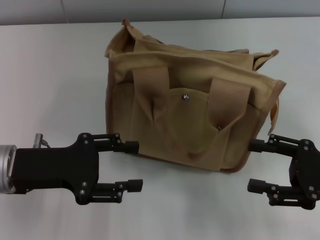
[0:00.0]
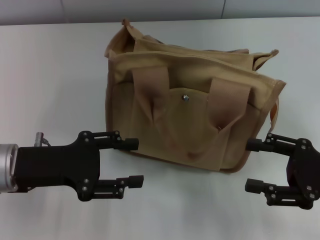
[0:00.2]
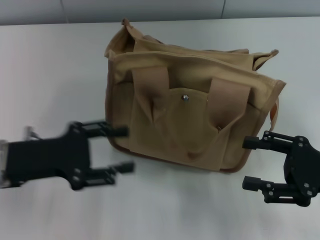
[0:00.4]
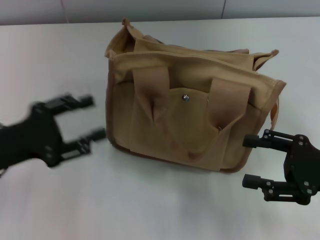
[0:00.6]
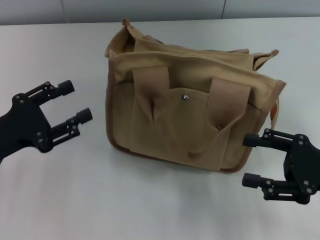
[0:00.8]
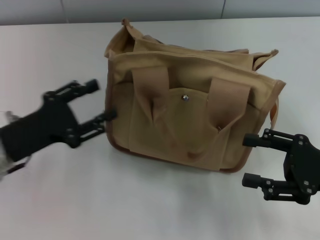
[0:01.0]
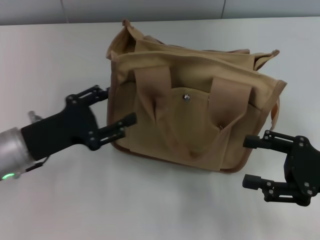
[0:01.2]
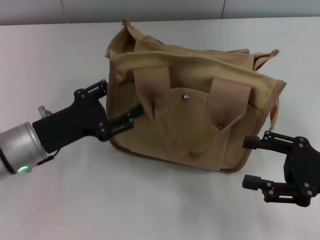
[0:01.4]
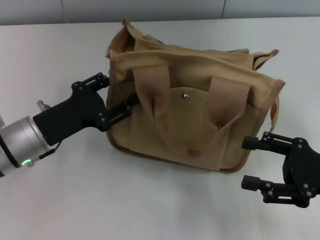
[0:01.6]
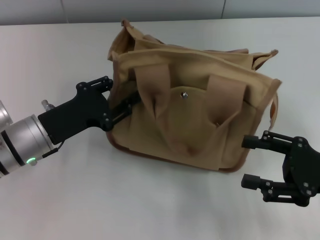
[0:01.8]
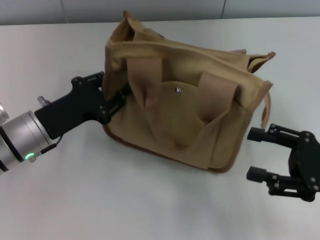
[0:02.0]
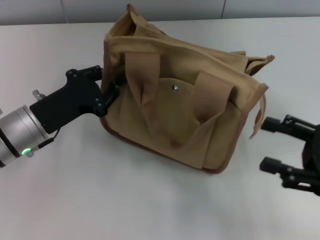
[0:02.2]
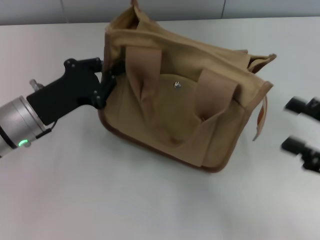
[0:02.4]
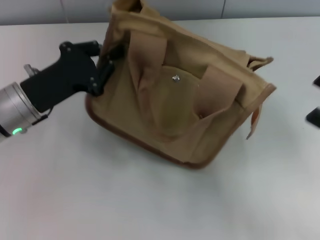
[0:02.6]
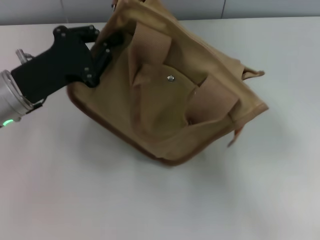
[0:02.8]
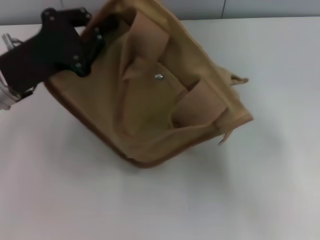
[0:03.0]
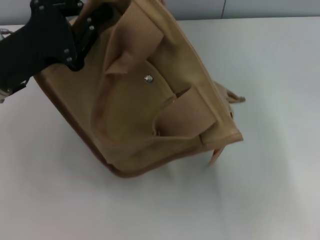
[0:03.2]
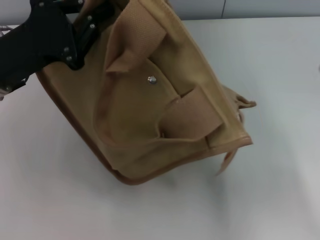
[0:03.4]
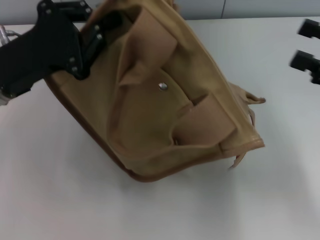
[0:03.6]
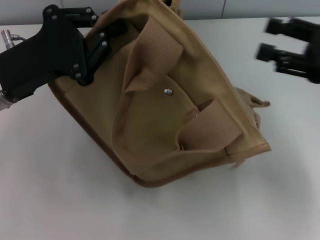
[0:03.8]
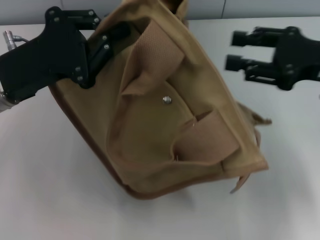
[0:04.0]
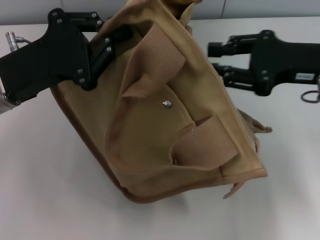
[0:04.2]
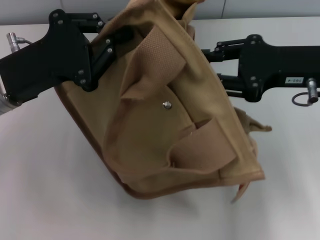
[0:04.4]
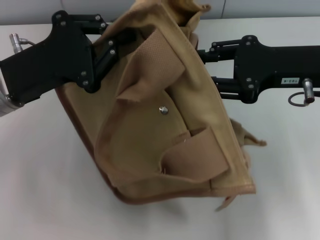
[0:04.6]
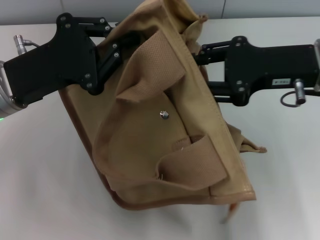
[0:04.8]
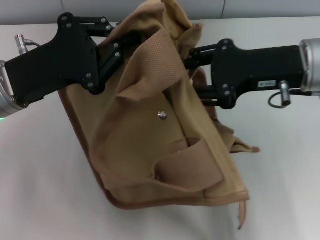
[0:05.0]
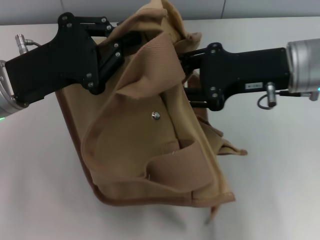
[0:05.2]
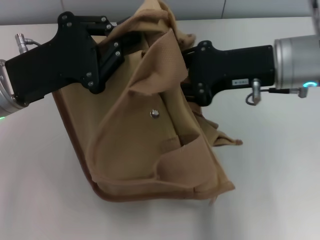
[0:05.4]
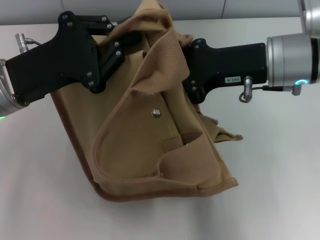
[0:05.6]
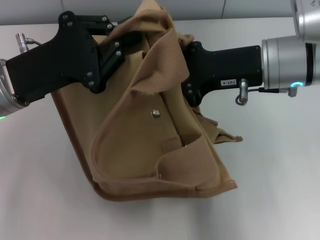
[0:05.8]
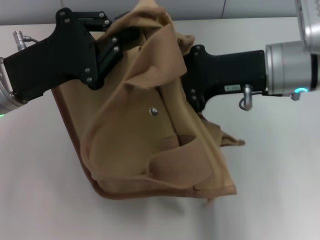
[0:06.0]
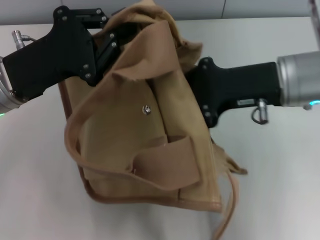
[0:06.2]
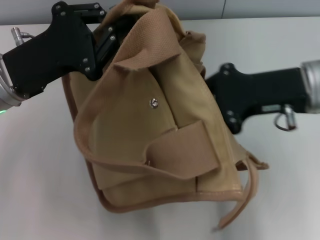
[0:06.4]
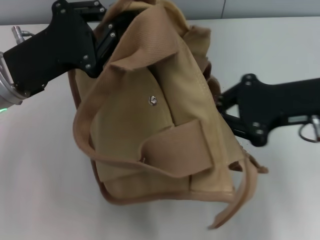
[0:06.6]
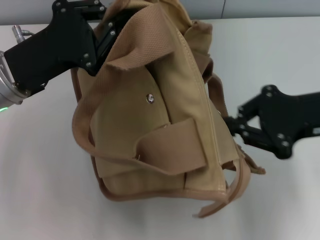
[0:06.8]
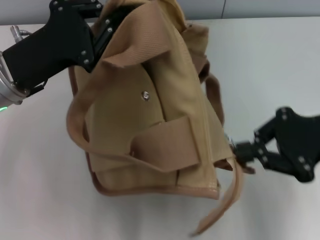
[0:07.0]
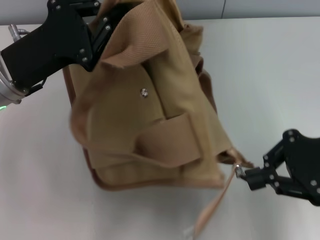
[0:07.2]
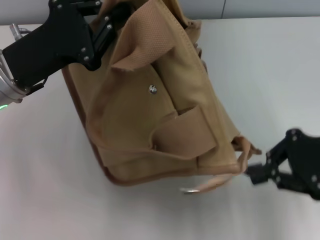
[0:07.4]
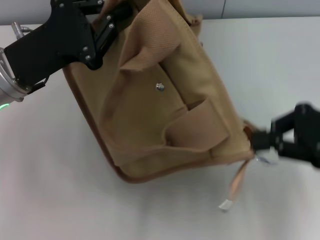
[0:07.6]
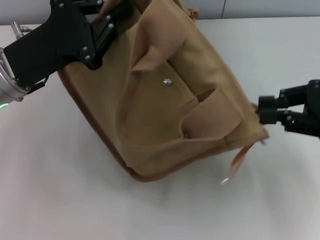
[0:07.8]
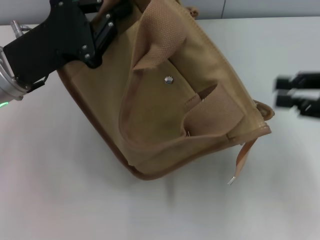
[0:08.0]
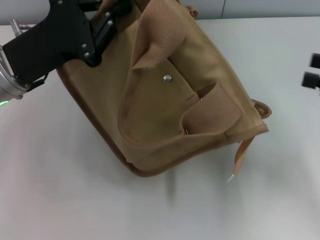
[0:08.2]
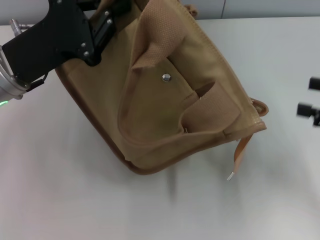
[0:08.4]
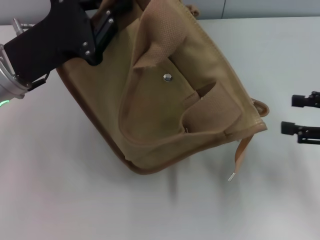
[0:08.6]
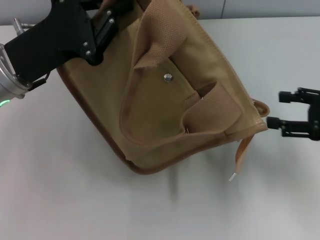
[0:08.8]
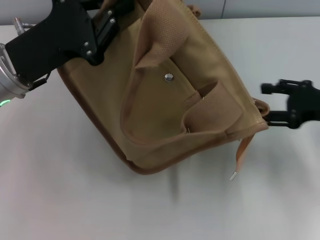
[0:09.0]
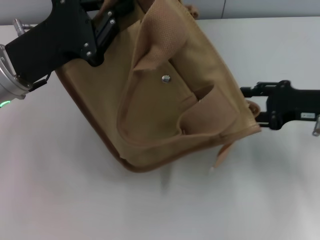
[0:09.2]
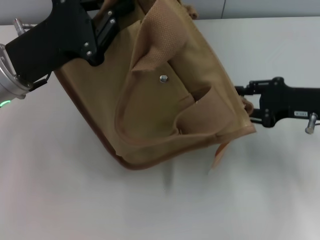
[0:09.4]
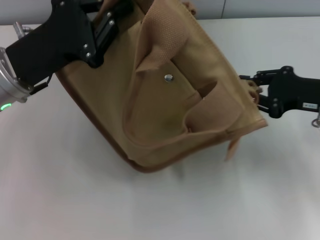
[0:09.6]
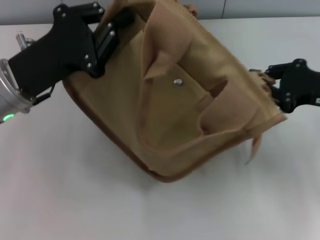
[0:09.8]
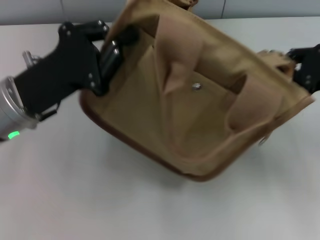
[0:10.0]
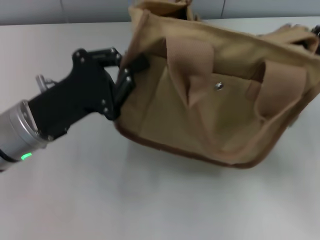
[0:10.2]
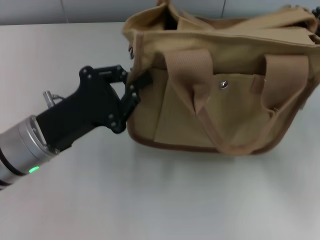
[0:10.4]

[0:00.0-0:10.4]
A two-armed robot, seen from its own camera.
Step, 0:00.0 to 0:07.8: Pull open the zipper with your right hand.
0:00.0 to 0:01.4: The left gripper changes place by about 5 cm.
0:01.4 to 0:03.0: The left gripper goes roughly 10 cm upward, and closes up. Meanwhile the right gripper goes some 10 cm to the right and upward.
0:03.0 to 0:04.4: The right gripper moves to the left and forward, some 15 cm, and closes its fingers.
0:04.4 to 0:06.0: The right gripper goes about 5 cm to the left, and closes up.
0:06.0 to 0:07.4: The right gripper moves to the right and backward, approximately 15 cm.
0:07.4 to 0:09.0: The right gripper moves downward, about 5 cm, and opens up.
0:09.0 to 0:10.4: The left gripper heads downward and backward, covering about 10 cm; the right gripper shifts approximately 5 cm upward, and closes up.

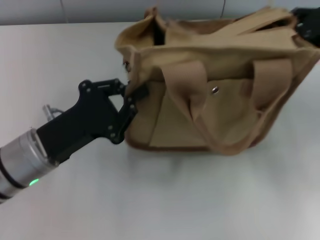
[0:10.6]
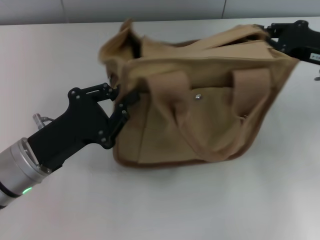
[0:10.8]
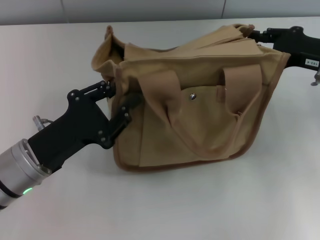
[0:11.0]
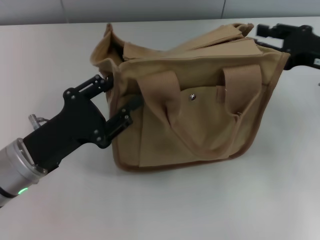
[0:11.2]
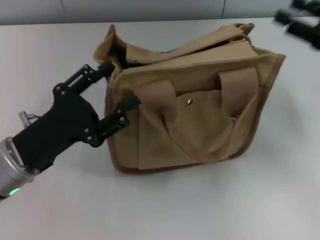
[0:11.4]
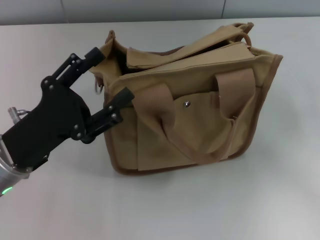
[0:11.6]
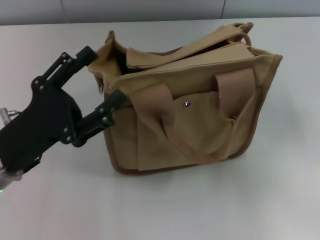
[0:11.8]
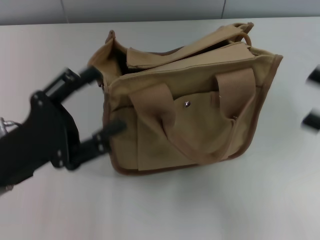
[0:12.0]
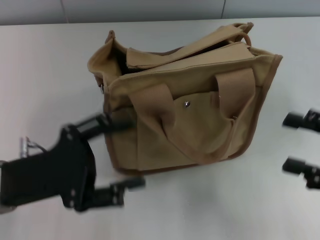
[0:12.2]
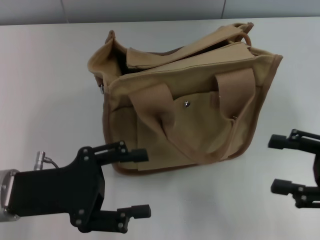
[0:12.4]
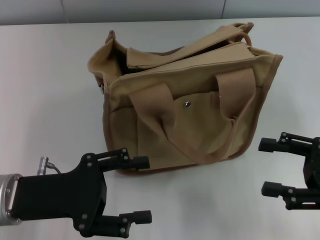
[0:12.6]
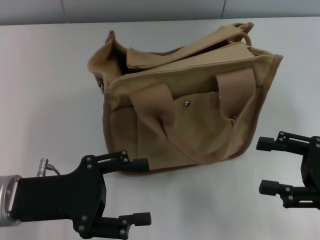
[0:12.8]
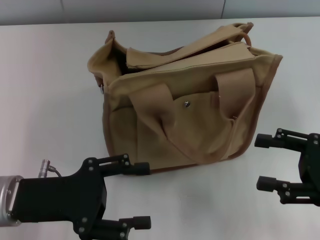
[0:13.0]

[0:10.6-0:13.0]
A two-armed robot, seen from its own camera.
0:10.6 to 0:11.8: The right gripper shifts some 10 cm backward, and opens up. The left gripper opens.
0:11.8 to 0:13.0: The right gripper shifts by about 5 cm.

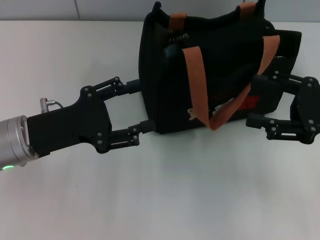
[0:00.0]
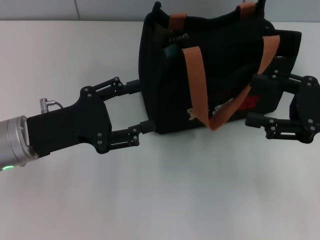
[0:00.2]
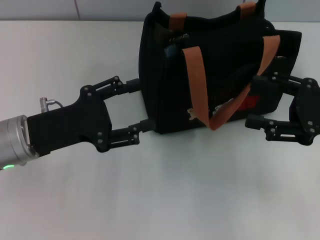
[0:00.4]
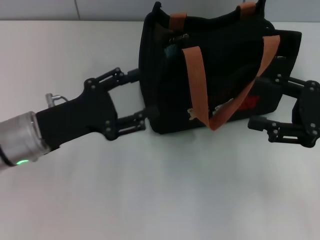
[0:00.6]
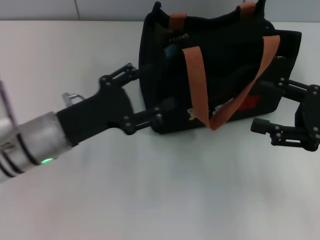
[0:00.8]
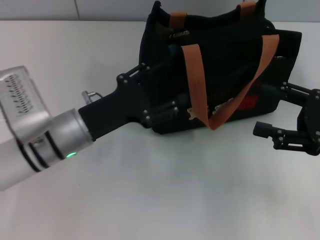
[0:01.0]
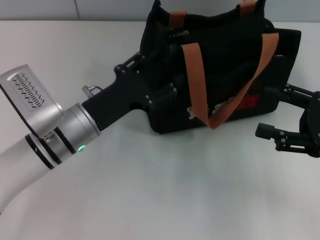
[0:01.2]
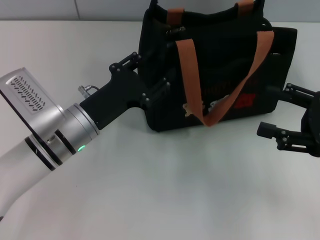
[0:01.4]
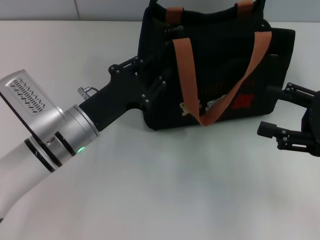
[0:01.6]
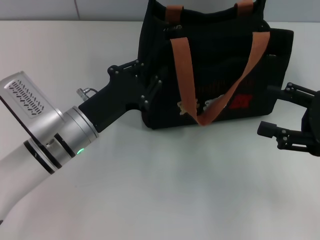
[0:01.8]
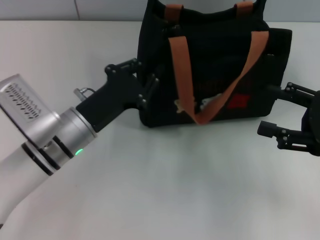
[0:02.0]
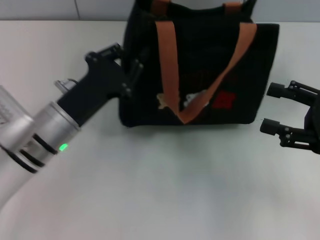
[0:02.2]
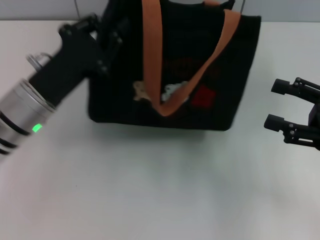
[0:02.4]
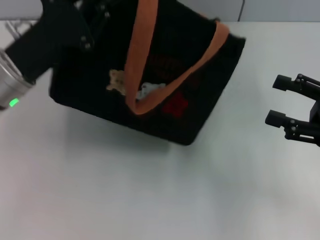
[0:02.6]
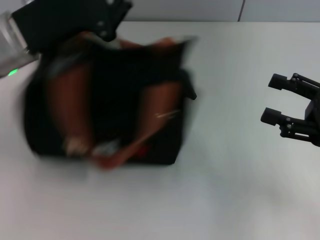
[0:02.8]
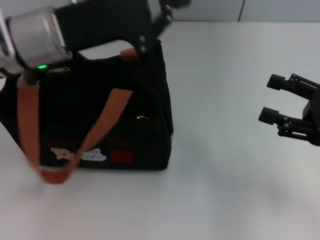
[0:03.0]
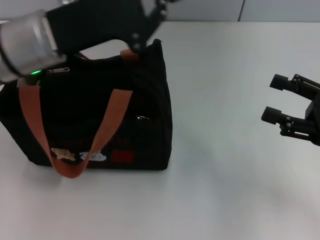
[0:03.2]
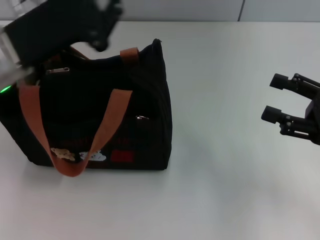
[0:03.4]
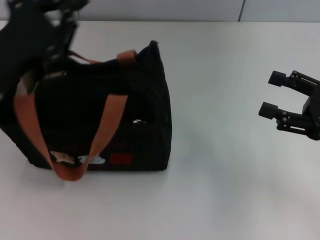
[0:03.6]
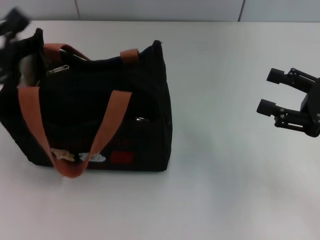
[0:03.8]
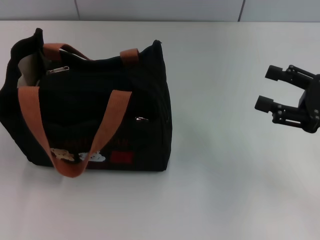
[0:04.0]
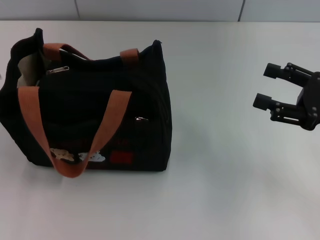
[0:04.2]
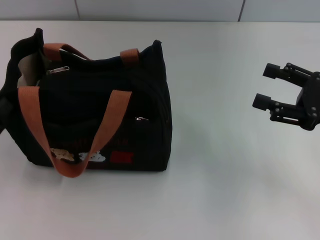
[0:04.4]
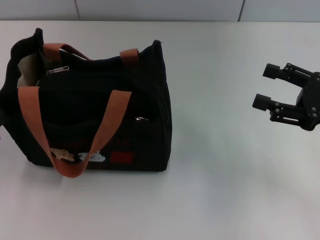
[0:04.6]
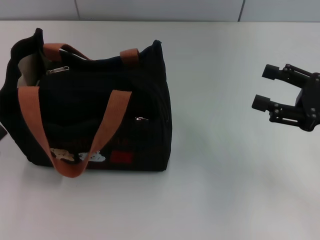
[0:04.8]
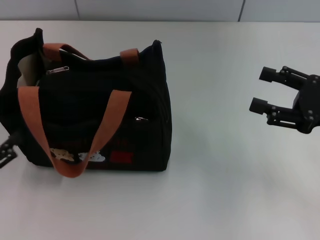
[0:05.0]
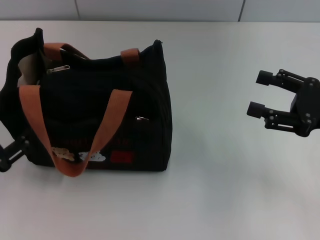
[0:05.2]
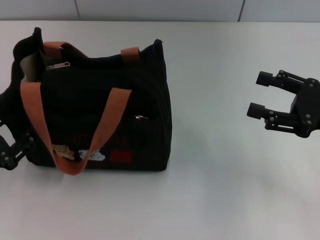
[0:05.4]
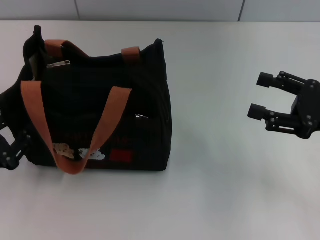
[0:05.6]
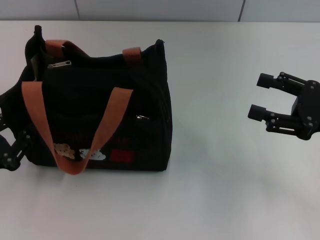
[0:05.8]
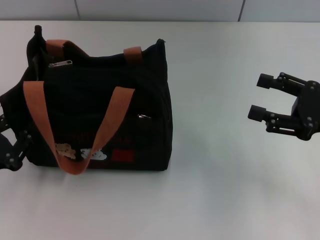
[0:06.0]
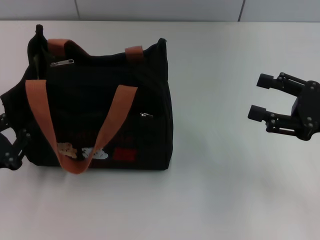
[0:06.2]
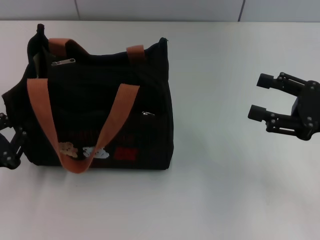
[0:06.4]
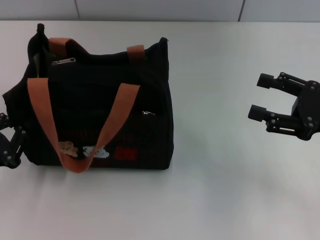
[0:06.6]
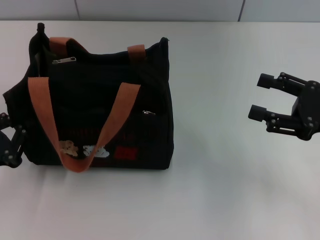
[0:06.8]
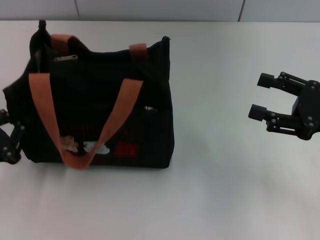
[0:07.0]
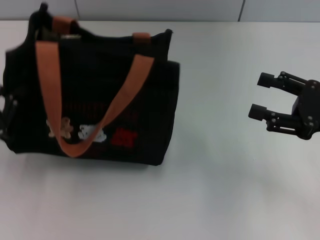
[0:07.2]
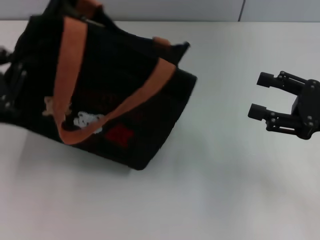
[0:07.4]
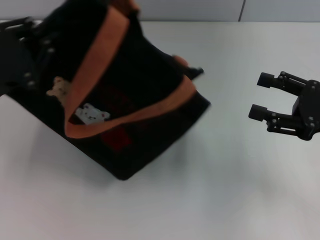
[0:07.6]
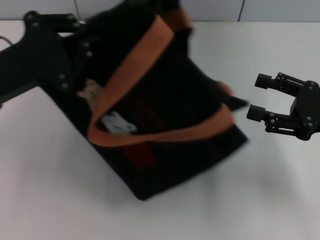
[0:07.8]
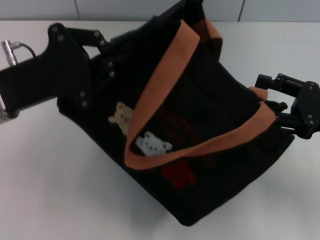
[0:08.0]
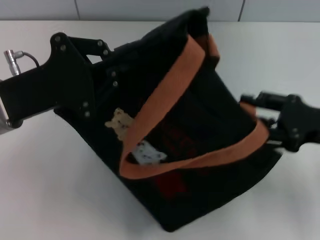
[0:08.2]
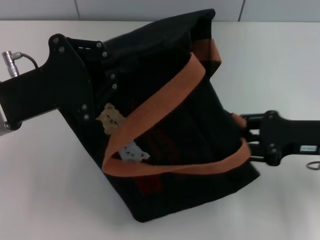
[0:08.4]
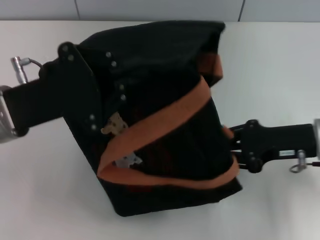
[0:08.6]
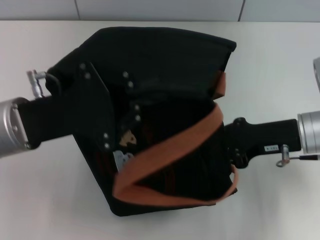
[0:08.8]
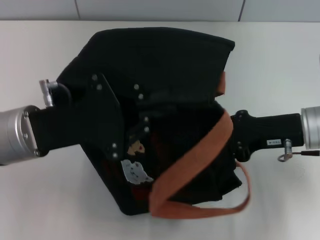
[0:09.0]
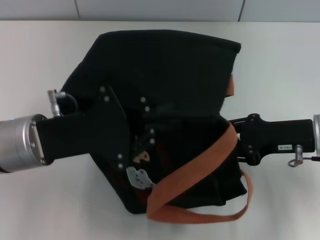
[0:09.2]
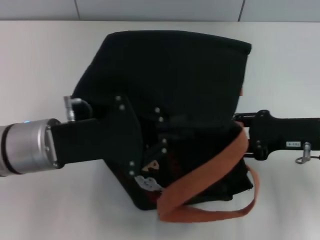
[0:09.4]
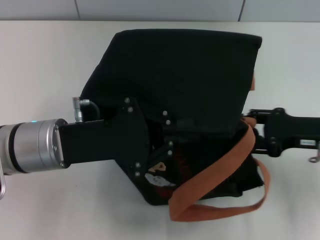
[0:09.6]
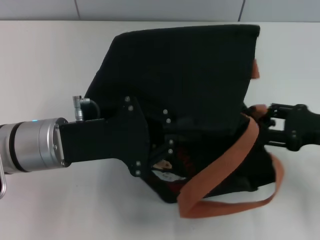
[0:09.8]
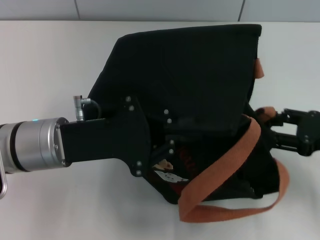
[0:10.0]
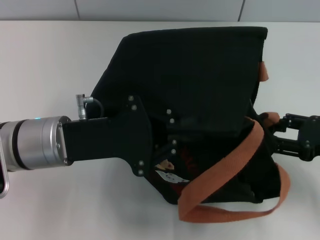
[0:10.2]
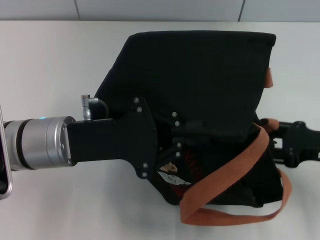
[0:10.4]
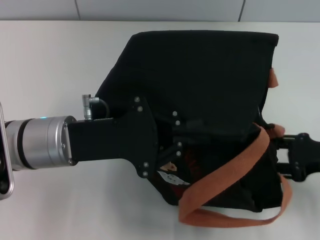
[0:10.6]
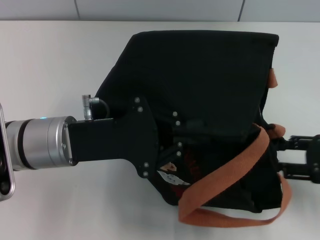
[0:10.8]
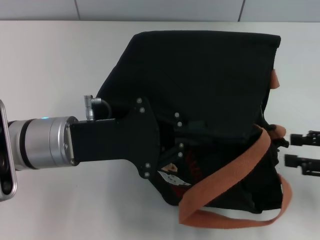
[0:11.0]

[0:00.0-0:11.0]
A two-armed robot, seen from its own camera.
0:00.0 to 0:01.6: The left gripper travels to the right by approximately 5 cm.
0:01.6 to 0:03.2: The left gripper shifts approximately 15 cm upward, and closes its fingers.
0:03.2 to 0:04.8: The left gripper is displaced backward, to the left and downward by approximately 30 cm, and opens up.
0:04.8 to 0:06.2: The left gripper ends up about 5 cm from where it was, and closes up.
0:06.2 to 0:07.8: The left gripper heads forward, upward and to the right, covering some 15 cm.
0:07.8 to 0:09.4: The right gripper closes, while the left gripper shifts roughly 5 cm to the right.
0:09.4 to 0:11.0: The right gripper travels to the right and backward by about 10 cm.
